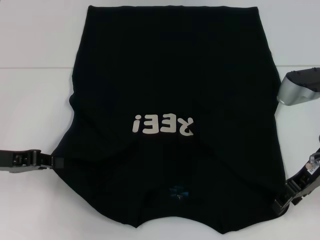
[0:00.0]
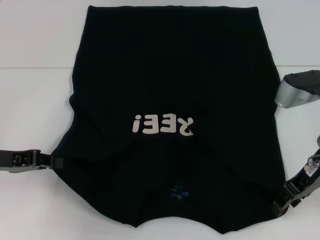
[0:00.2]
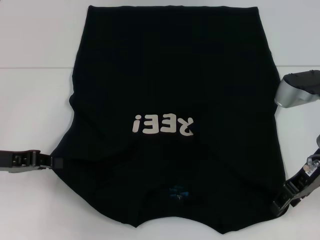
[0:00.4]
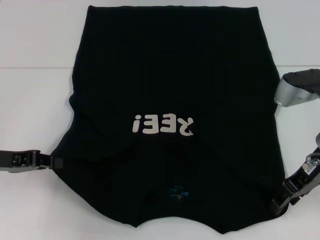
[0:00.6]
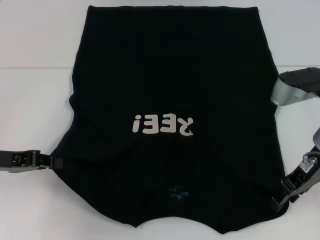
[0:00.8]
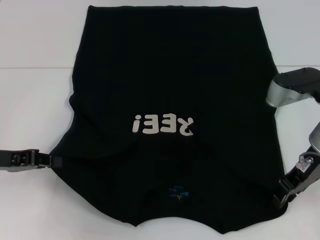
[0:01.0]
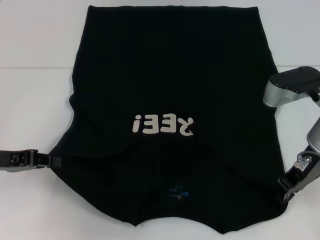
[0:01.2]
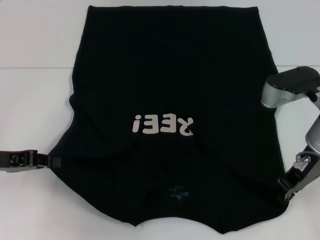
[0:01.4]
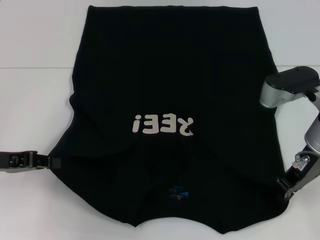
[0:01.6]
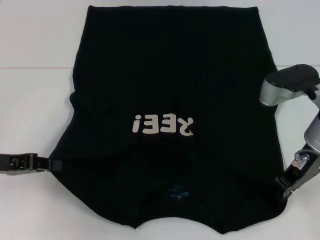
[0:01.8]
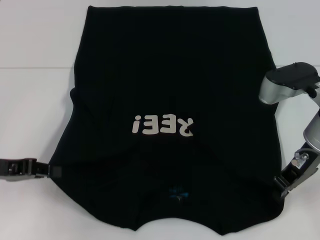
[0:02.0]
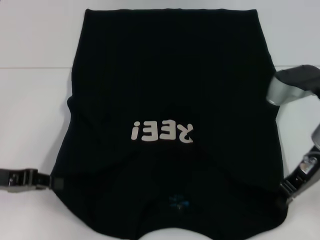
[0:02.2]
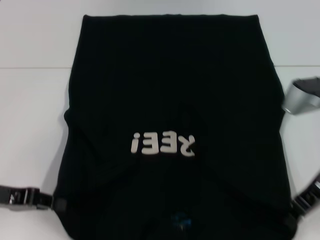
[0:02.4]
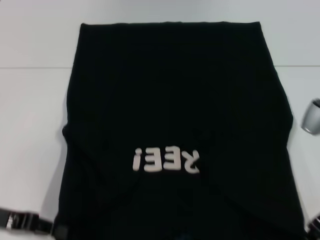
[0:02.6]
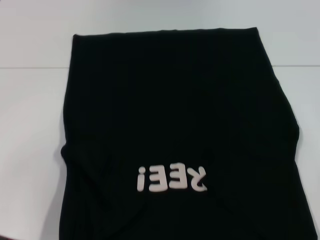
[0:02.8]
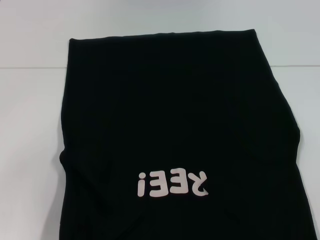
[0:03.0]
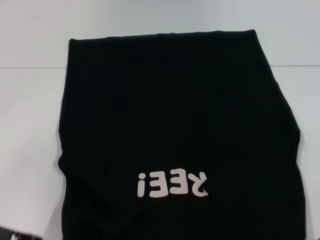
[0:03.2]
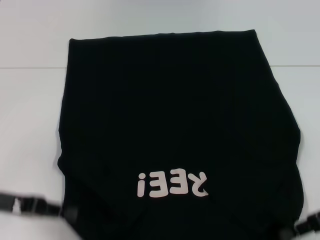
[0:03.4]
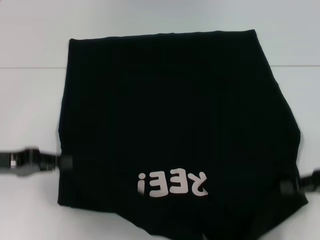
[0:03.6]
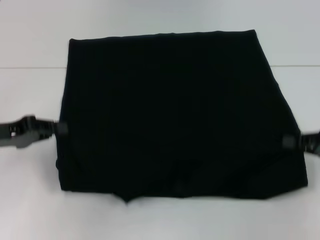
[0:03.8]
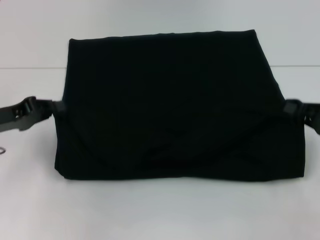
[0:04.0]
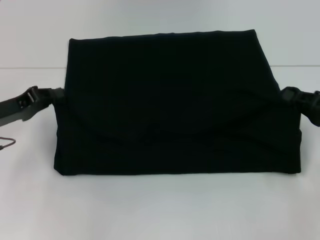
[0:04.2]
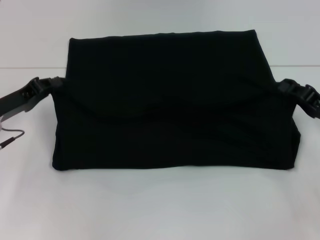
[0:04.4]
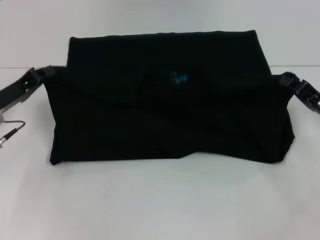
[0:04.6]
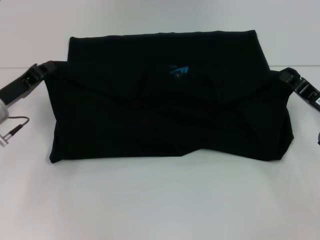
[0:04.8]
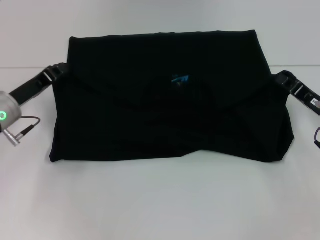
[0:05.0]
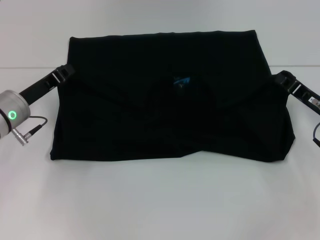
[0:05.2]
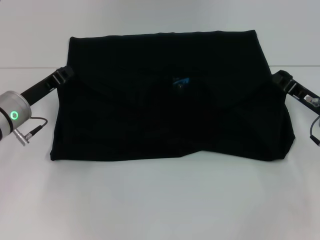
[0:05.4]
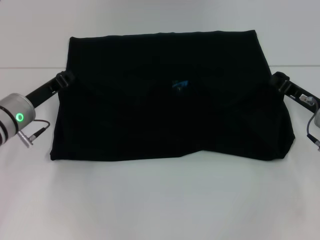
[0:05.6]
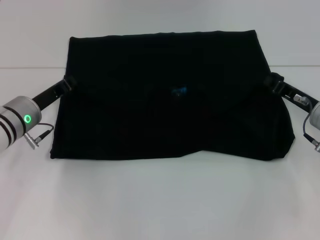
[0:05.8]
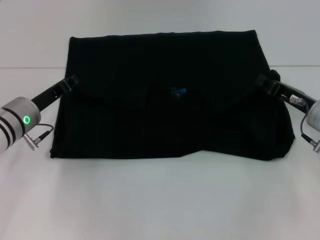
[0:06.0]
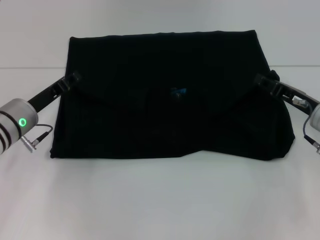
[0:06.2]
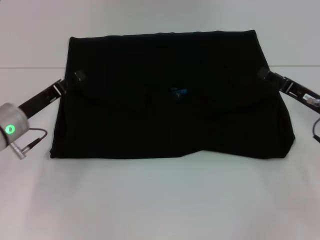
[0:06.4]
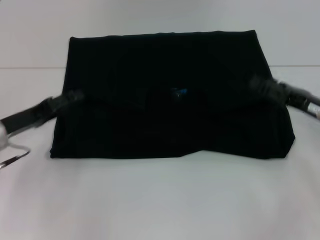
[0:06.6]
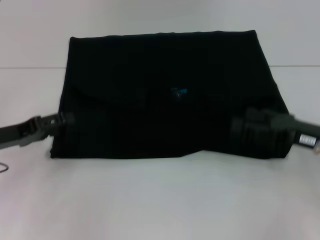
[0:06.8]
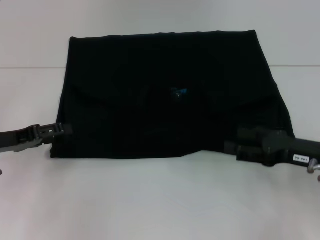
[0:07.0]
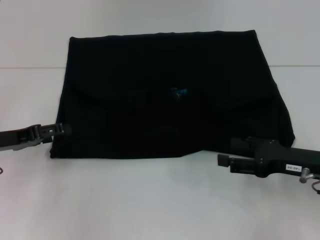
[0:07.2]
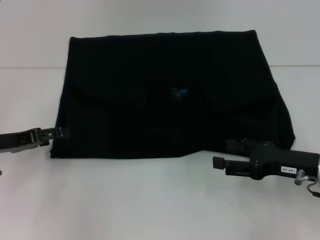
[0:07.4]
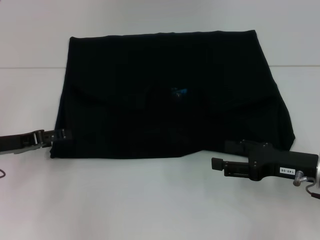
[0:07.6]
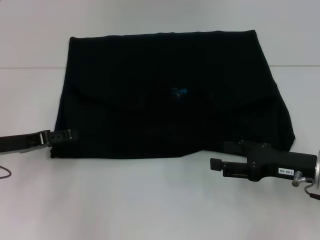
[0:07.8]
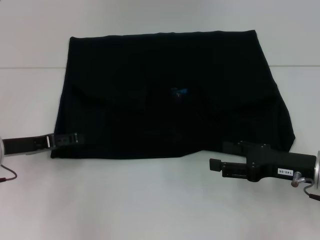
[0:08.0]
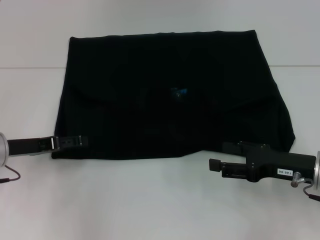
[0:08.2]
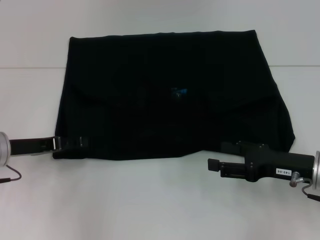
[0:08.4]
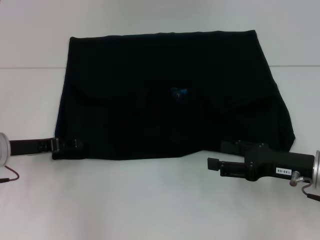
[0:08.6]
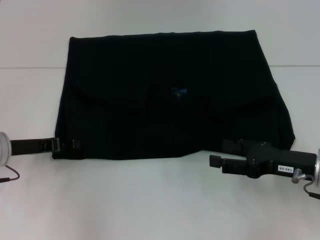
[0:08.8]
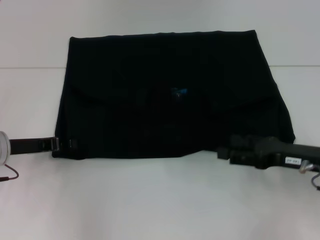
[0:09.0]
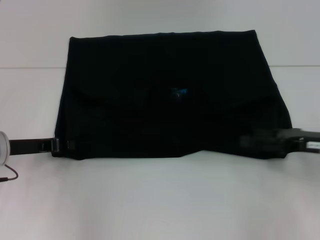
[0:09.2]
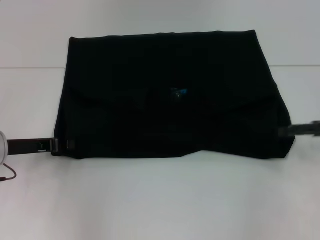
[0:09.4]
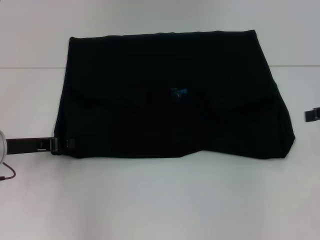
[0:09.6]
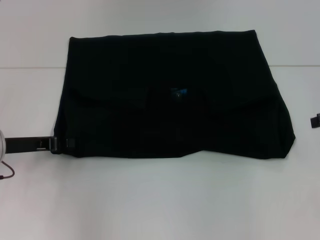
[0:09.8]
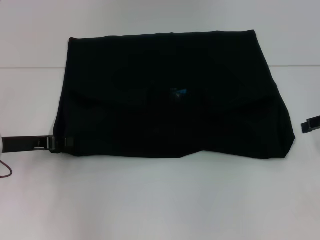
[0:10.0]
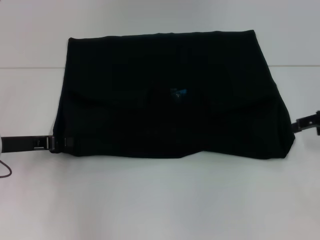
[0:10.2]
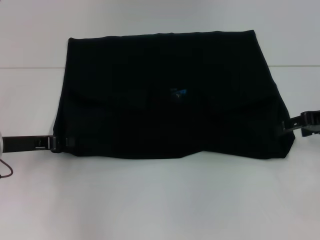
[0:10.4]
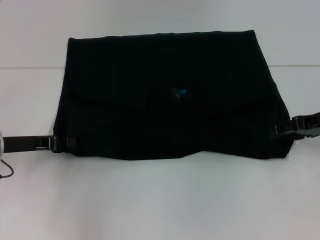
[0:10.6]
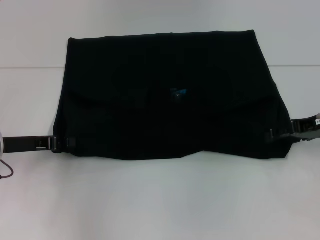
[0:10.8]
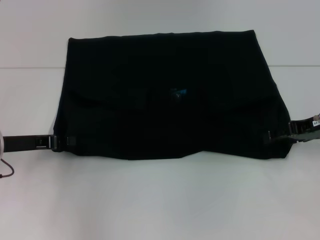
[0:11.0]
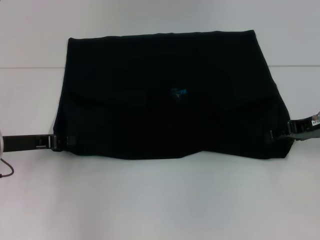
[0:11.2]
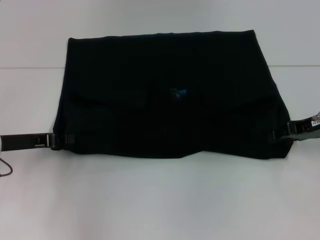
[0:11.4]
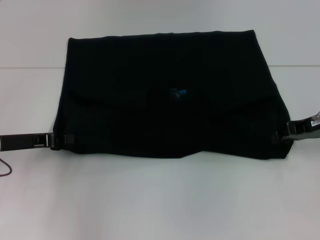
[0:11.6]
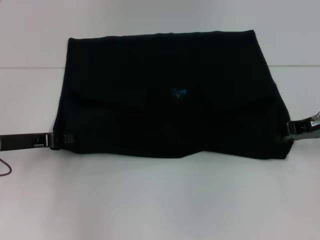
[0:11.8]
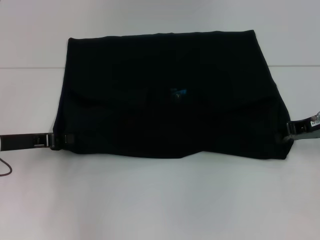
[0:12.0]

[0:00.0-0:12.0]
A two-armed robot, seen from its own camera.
Step, 0.0 to 2.2 s: Grab the bottom right corner with your right hand.
Step, 2.4 to 6.8 s: Fold the clothes with your left hand.
Step, 2.4 to 6.8 s: Fold the clothes with your right hand.
0.0 to 1.6 s: The right gripper closes.
1.6 to 3.0 s: The left gripper is displaced backward by about 5 cm, while the right gripper moves to the right and backward, some 10 cm.
3.0 to 4.4 s: The left gripper travels forward by some 10 cm; the right gripper heads forward, covering about 5 cm.
4.4 to 6.0 s: The right gripper ends up roughly 5 cm from where it was, while the left gripper goes approximately 5 cm to the right.
6.0 to 7.6 s: The right gripper shifts about 10 cm backward, and opens its fingers, while the left gripper moves to the left and backward, about 10 cm, and opens up.
7.6 to 9.0 s: The left gripper closes up.
9.0 to 10.4 s: The right gripper goes approximately 10 cm forward and upward.
10.4 to 12.0 s: The right gripper closes up.

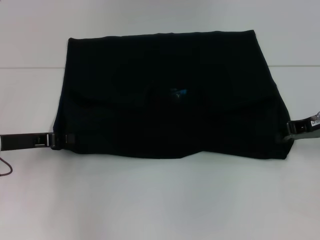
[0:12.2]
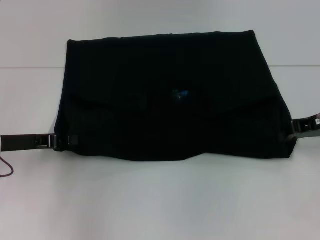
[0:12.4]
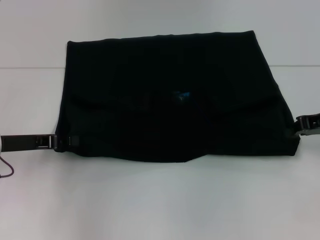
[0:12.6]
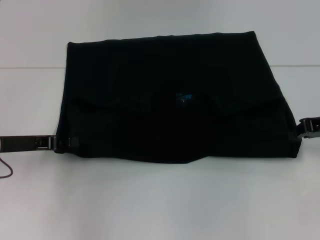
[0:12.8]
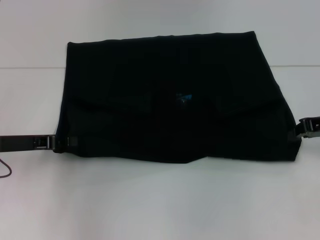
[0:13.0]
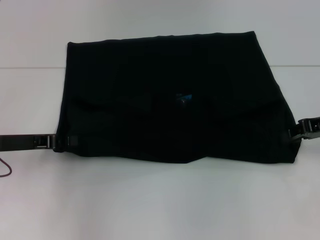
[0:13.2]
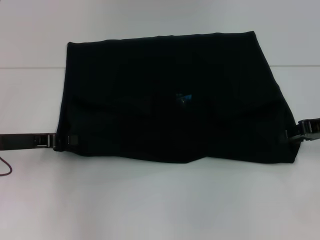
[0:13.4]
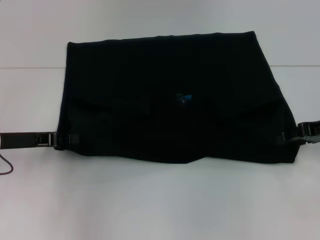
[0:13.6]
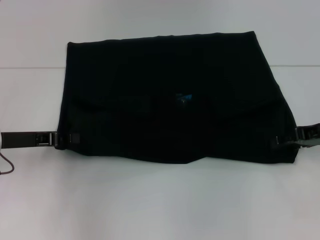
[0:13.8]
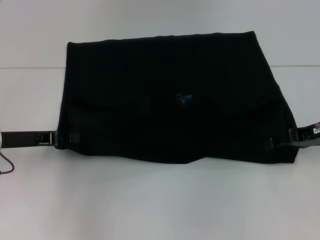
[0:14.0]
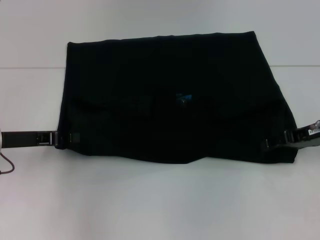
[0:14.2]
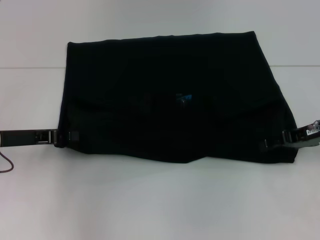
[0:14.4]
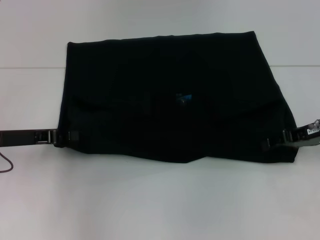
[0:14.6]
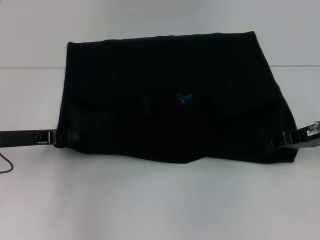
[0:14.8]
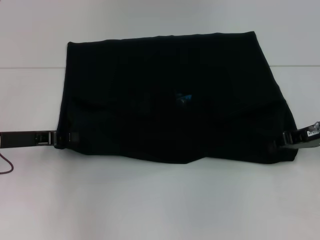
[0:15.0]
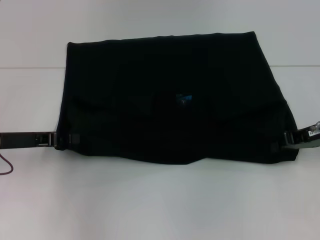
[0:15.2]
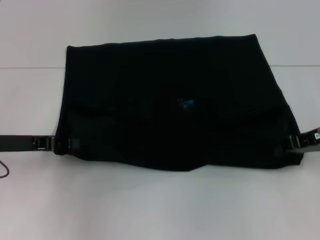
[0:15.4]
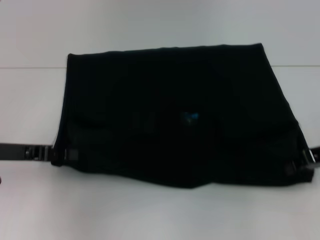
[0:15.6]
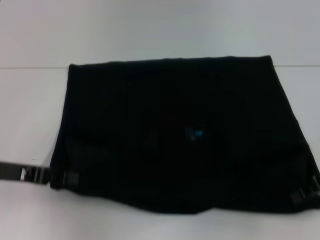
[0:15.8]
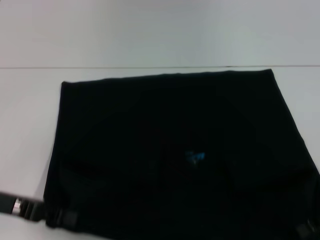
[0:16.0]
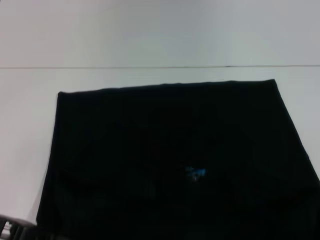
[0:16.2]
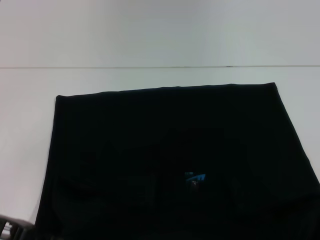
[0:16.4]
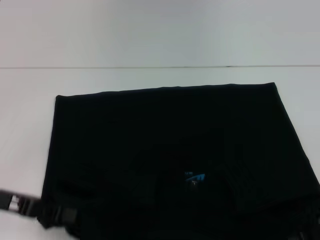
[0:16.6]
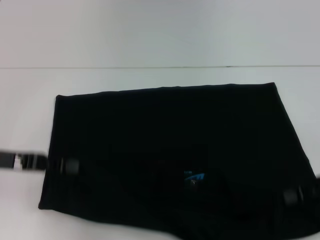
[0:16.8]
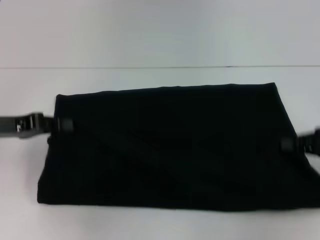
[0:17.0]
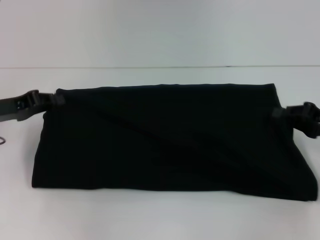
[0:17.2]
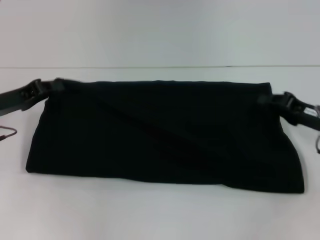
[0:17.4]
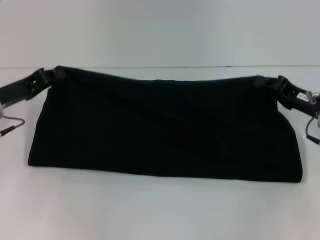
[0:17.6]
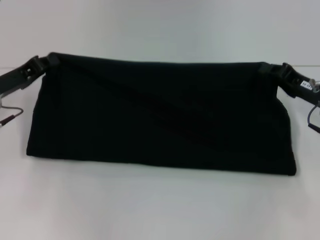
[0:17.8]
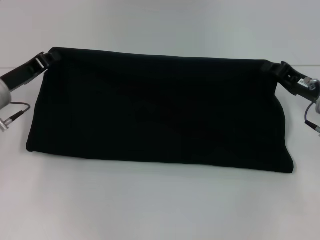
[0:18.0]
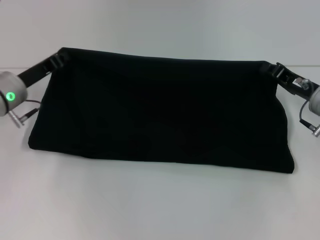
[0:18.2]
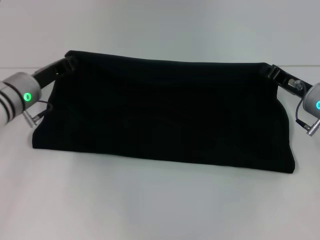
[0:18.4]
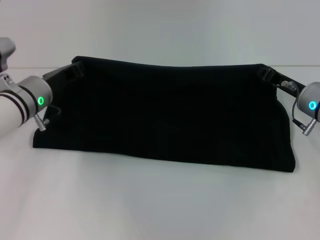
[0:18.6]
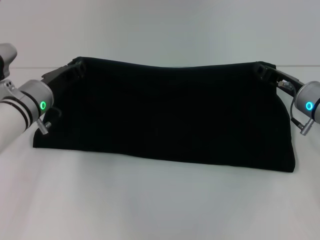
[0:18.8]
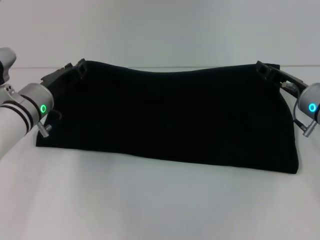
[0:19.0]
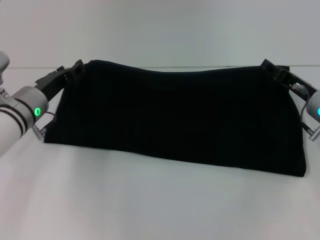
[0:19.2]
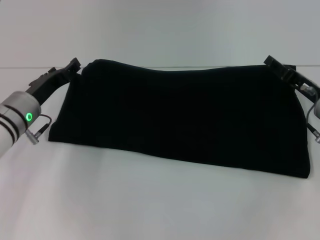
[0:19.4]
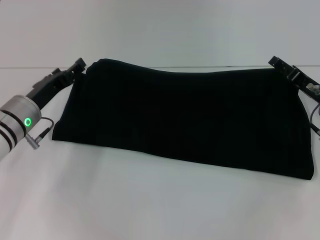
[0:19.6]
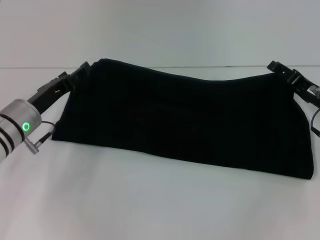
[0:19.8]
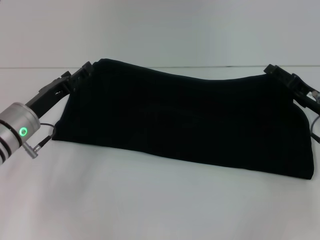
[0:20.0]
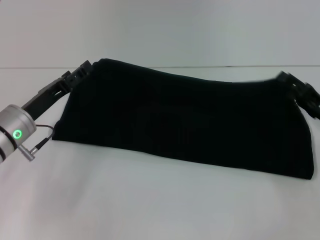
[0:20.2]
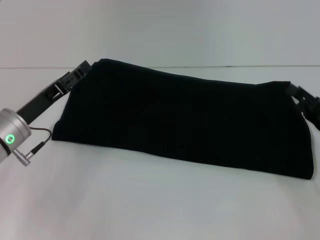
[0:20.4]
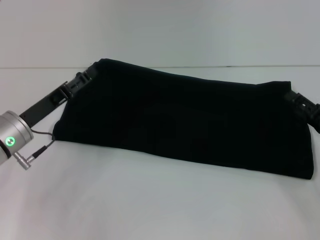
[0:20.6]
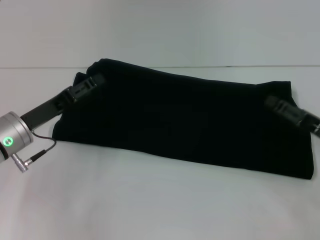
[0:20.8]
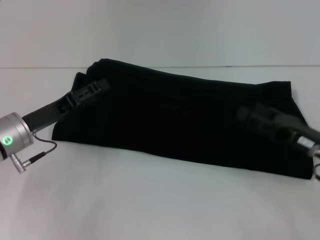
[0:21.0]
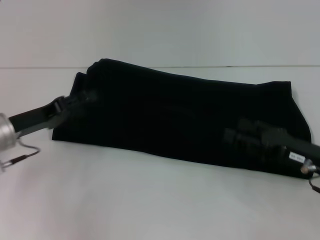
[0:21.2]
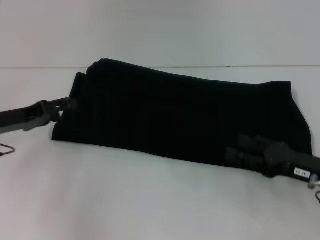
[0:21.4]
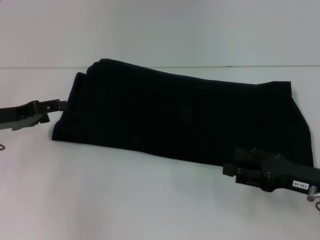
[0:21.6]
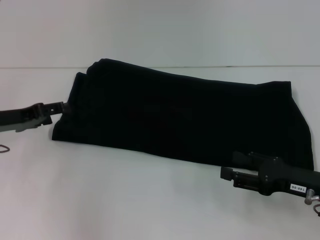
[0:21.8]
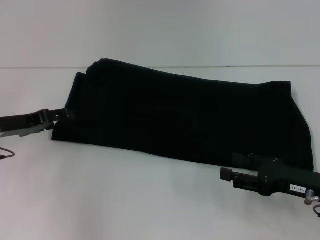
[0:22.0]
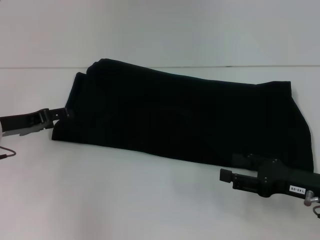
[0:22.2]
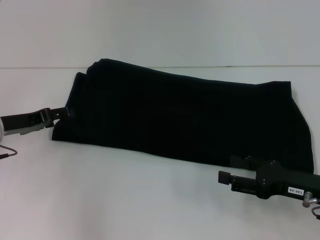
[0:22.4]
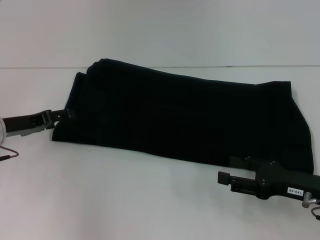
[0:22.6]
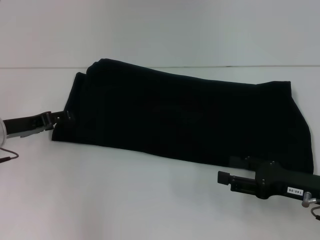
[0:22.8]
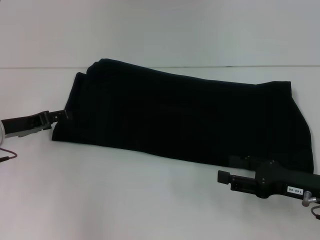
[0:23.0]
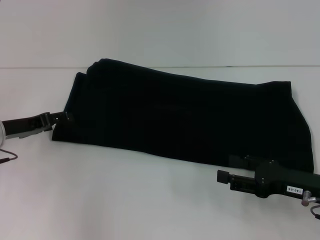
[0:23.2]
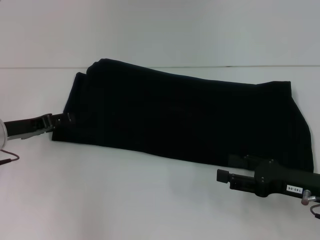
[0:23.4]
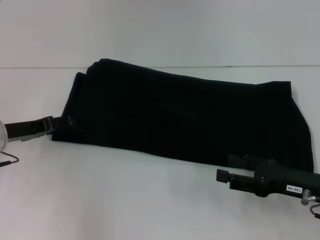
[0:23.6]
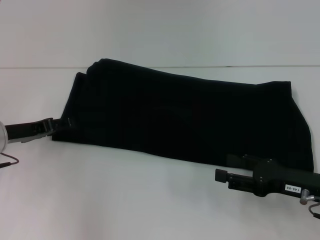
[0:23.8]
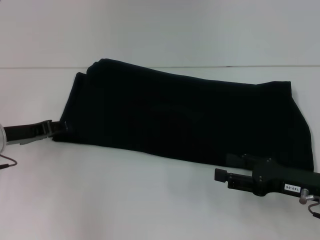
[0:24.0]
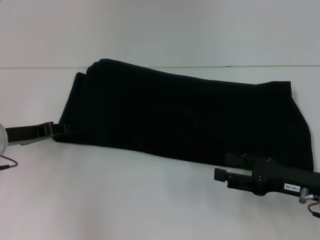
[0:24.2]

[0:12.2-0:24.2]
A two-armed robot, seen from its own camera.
Step, 12.2 to 16.0 s: Pull the clothes with your left hand.
Step, 12.2 to 16.0 s: Pull the clothes with your right hand.
Step, 16.2 to 20.0 s: Fold the clothes with your right hand.
12.2 to 13.8 s: The right gripper opens up.
13.8 to 15.2 s: The right gripper closes its fingers.
15.2 to 16.6 s: Both grippers travel together backward, about 10 cm.
16.6 to 18.2 s: The left gripper shifts approximately 15 cm forward. The right gripper shifts approximately 10 cm forward and to the left.
18.2 to 19.8 s: The left gripper changes place by some 5 cm, and opens its fingers, while the right gripper opens.
19.8 to 21.2 s: The right gripper goes approximately 10 cm backward. Meanwhile the left gripper ends up about 5 cm from where it was.
22.6 to 24.2 s: Both grippers stay about where they are.
